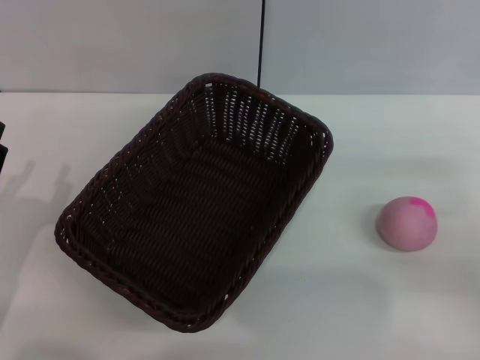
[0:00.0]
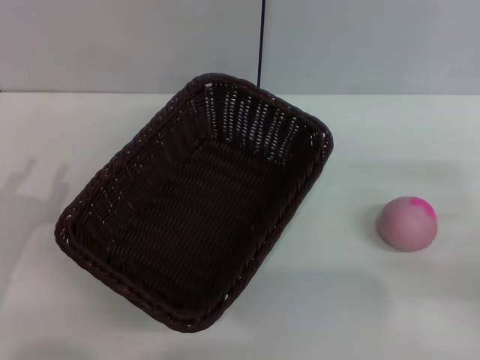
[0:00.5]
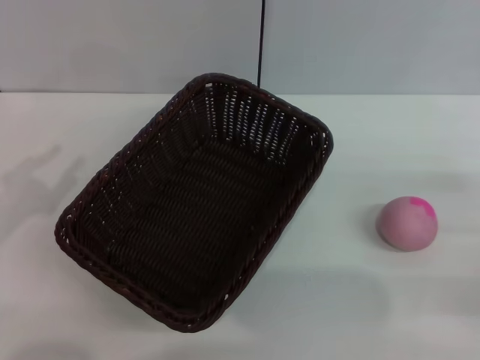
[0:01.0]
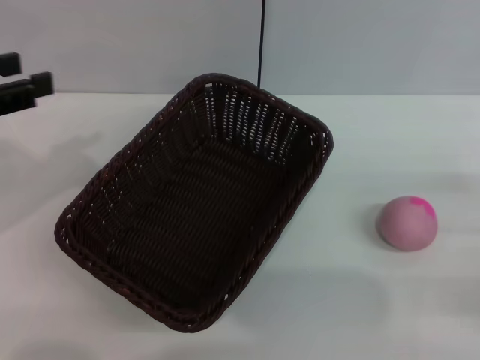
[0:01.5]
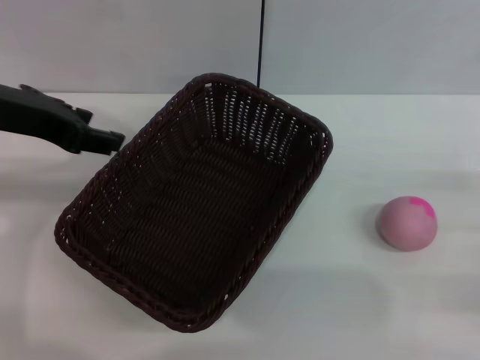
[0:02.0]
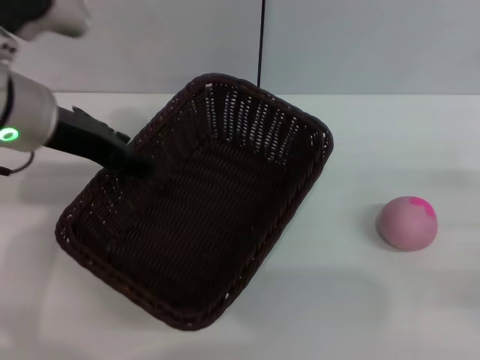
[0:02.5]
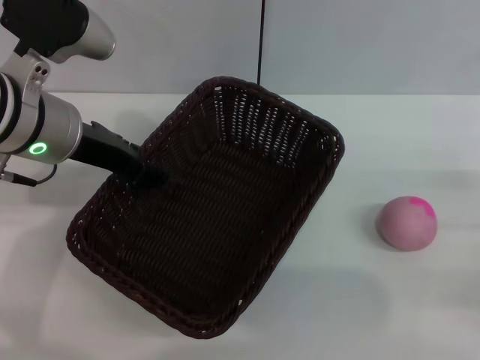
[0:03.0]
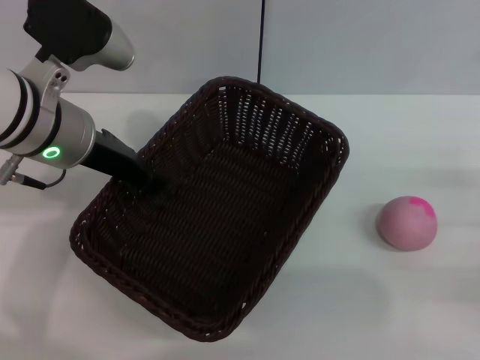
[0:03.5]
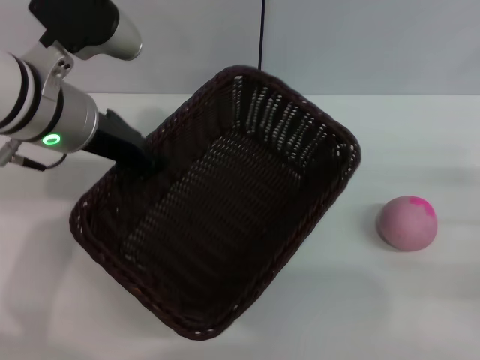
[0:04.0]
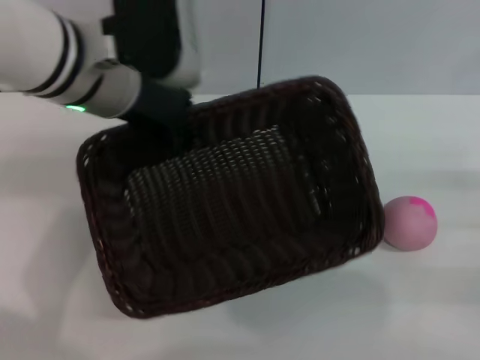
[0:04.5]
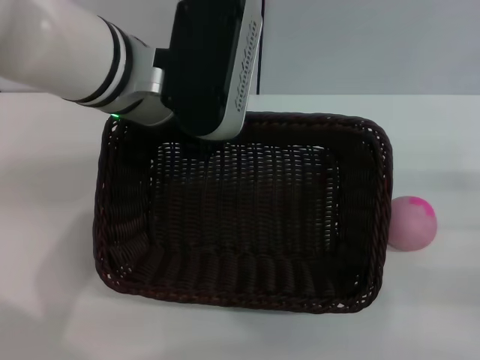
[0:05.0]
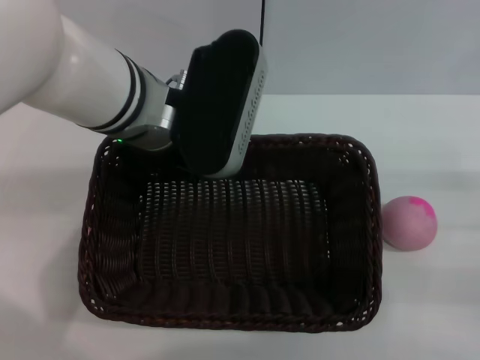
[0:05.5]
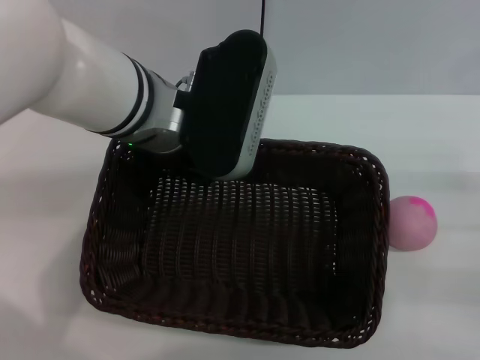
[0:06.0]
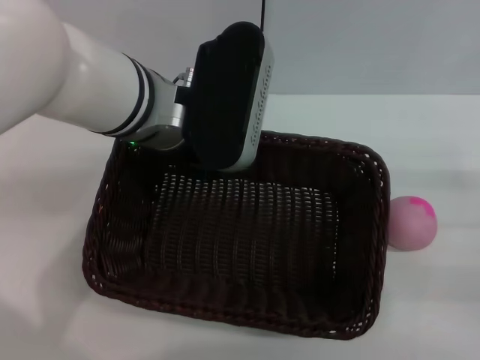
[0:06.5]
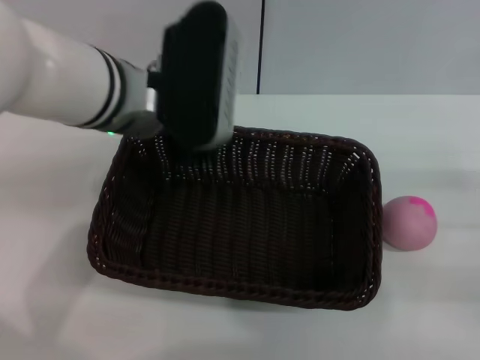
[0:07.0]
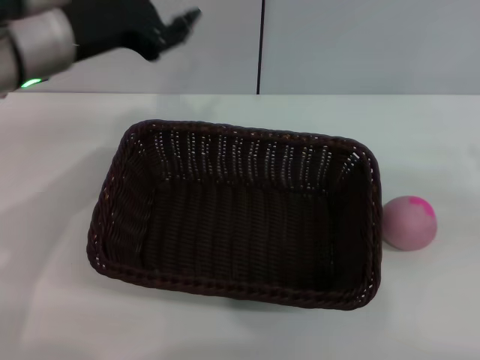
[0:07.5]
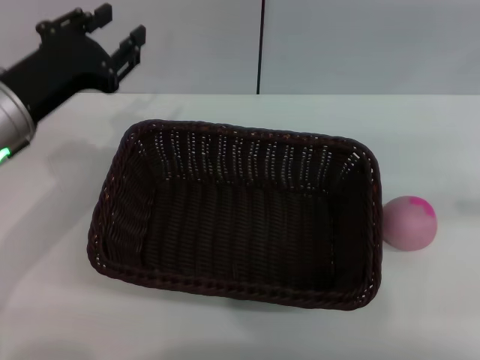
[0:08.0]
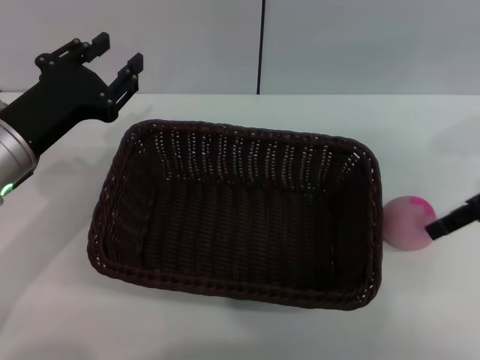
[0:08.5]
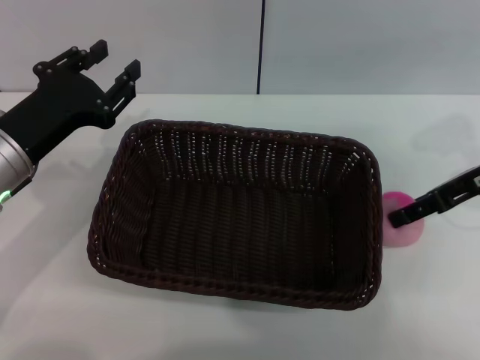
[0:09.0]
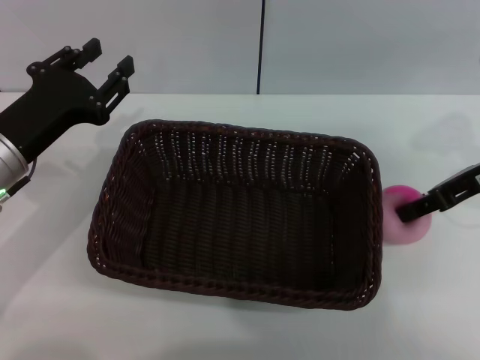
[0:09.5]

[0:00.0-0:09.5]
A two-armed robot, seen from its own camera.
Step, 0:00.0 to 0:04.0: Pick up the dark basket with the left gripper.
Step, 0:04.5 to 0:07.0: Place the dark basket in the center of view with the right gripper.
0:00.0 to 0:02.0: The left gripper goes approximately 25 cm upward and forward.
0:02.0 to 0:04.0: The left gripper is displaced to the right and downward by approximately 10 cm, and closes up.
0:04.0 to 0:05.5: The left gripper shifts about 10 cm to the right.
0:05.5 to 0:07.5: The left gripper travels to the left by some 10 cm, and opens; the right gripper heads upward and to the right, covering approximately 10 cm.
0:07.5 to 0:09.5: The left gripper goes approximately 15 cm downward, to the left and backward; the right gripper shifts some 20 cm to the left and forward, and closes its fingers.

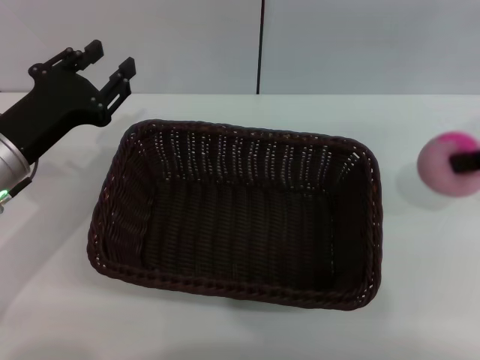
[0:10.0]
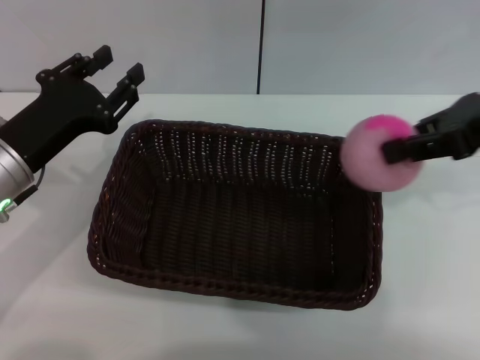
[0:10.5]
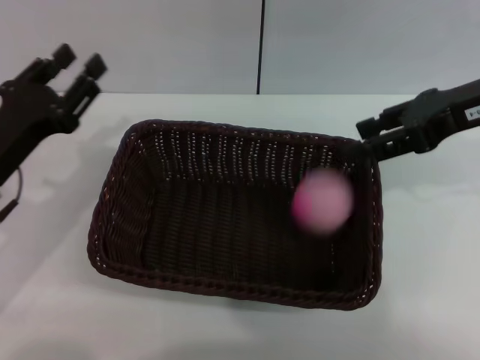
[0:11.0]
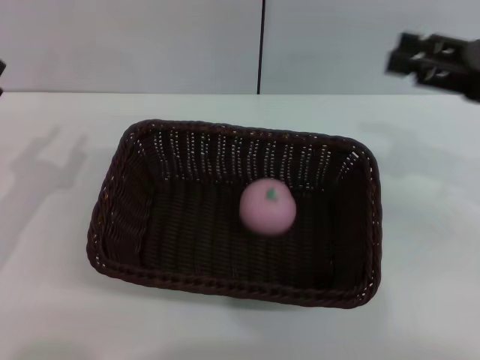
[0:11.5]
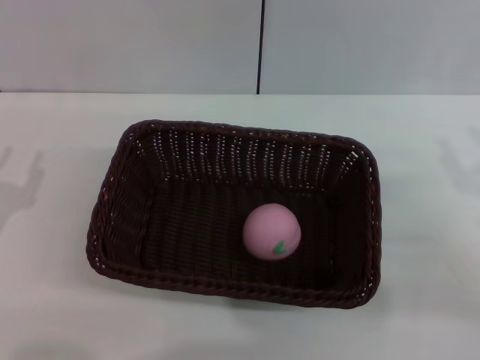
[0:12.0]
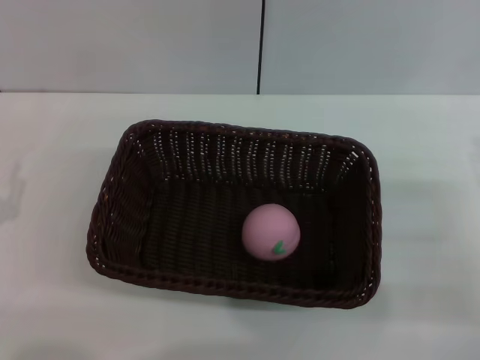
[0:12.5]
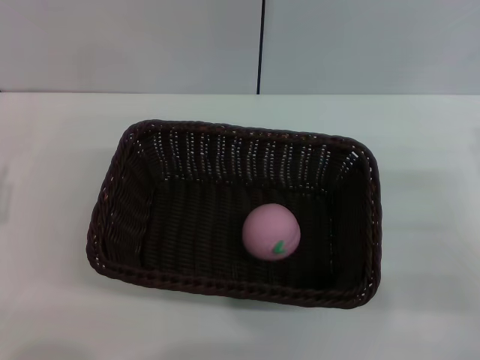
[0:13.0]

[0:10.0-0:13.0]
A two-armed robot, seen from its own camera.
Step, 0:10.5 to 0:11.0: Place the peach into the basket with the left gripper.
0:10.0 to 0:11.5: The left gripper is displaced to the left and backward by some 10 cm. The right gripper goes to the left and returns, roughly 10 cm each way, and opens.
0:11.5 to 0:13.0: The left gripper travels backward by about 5 cm. The right gripper travels downward and backward by roughly 15 cm.
